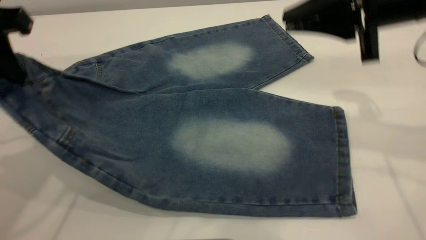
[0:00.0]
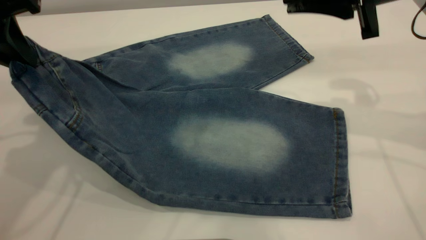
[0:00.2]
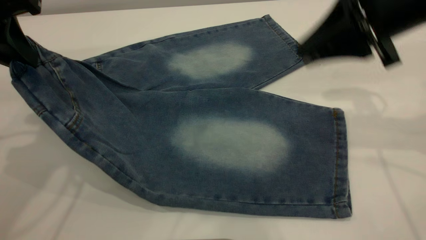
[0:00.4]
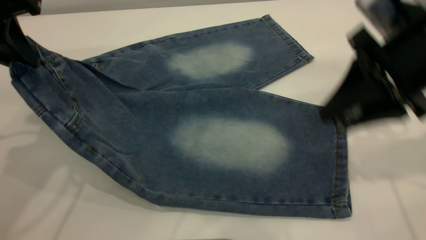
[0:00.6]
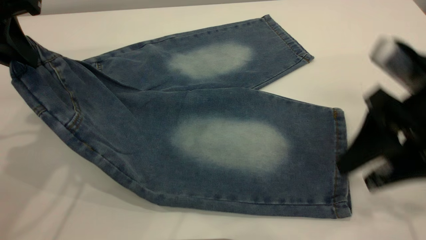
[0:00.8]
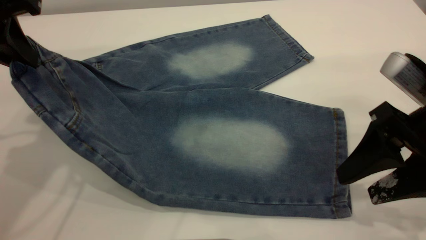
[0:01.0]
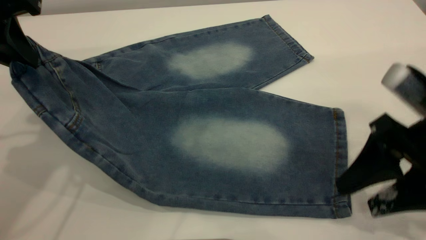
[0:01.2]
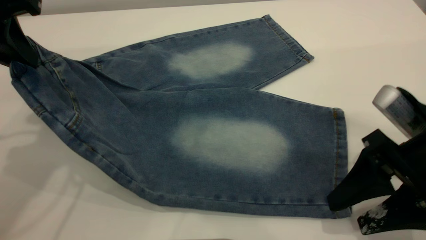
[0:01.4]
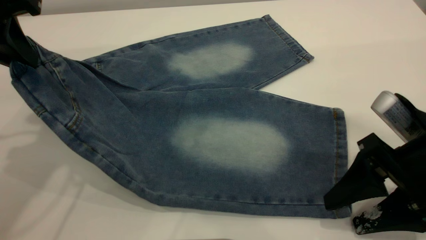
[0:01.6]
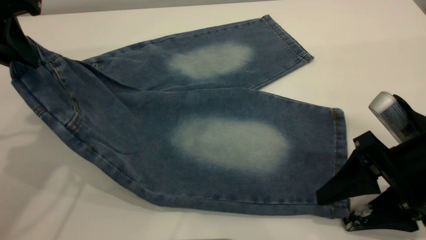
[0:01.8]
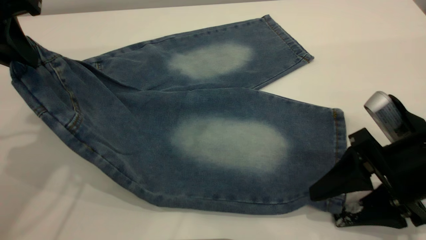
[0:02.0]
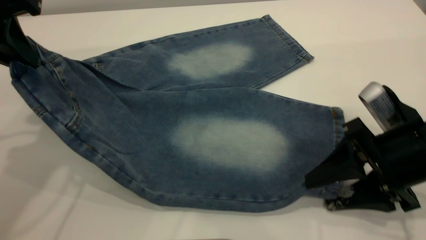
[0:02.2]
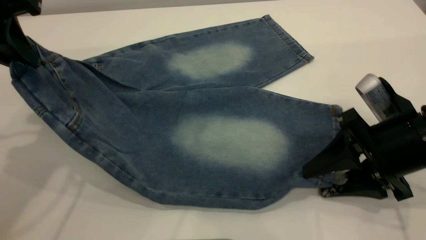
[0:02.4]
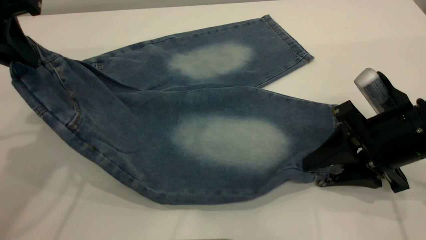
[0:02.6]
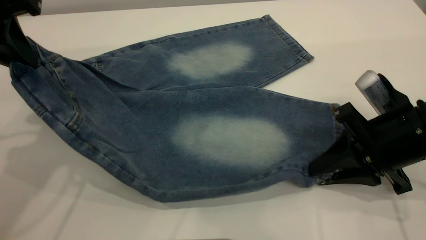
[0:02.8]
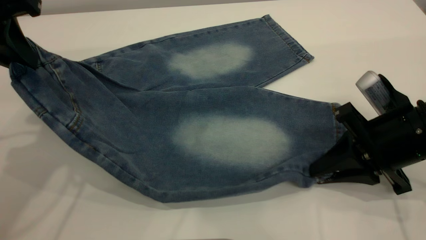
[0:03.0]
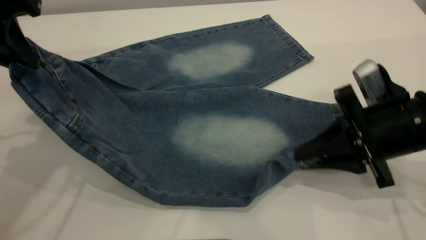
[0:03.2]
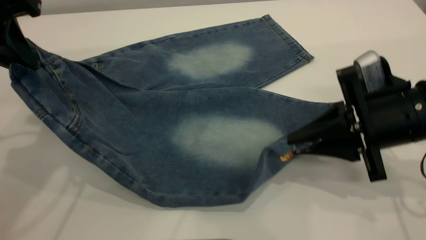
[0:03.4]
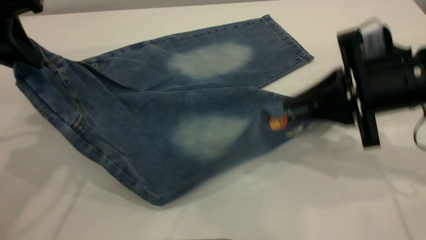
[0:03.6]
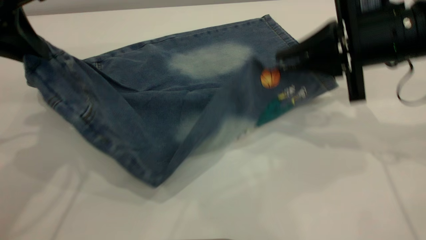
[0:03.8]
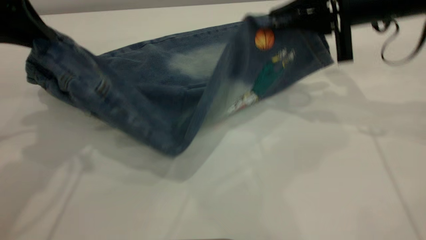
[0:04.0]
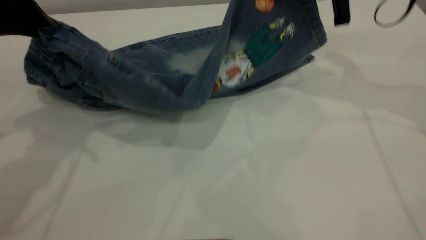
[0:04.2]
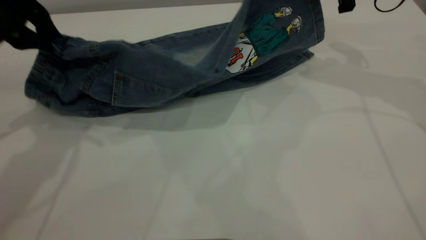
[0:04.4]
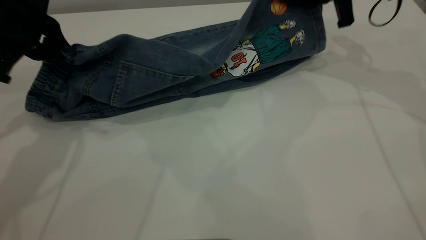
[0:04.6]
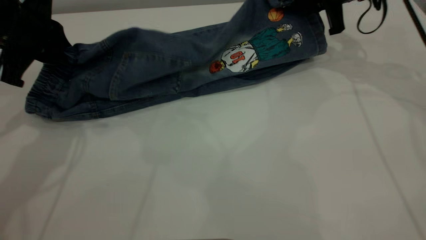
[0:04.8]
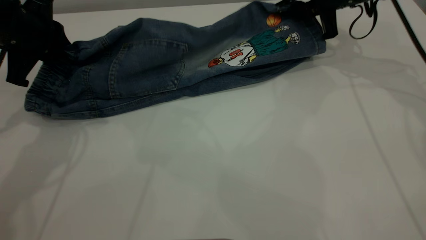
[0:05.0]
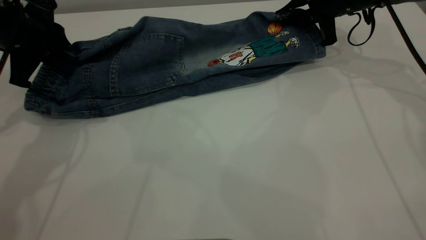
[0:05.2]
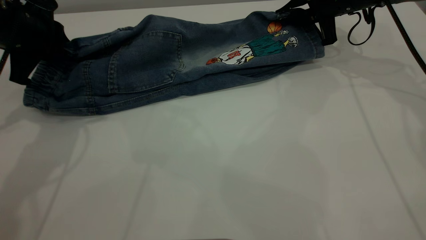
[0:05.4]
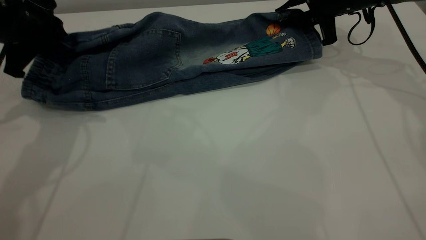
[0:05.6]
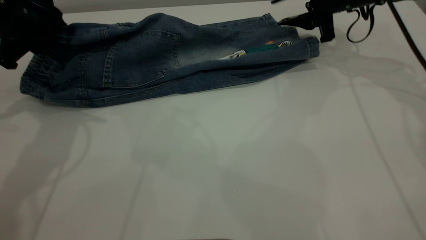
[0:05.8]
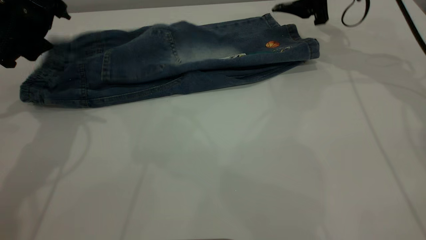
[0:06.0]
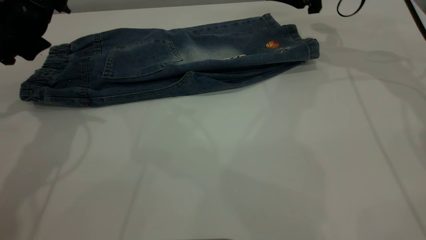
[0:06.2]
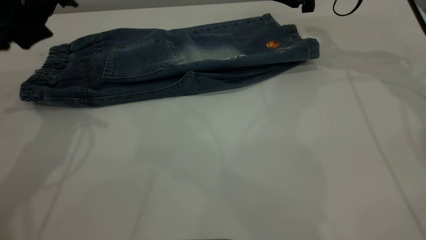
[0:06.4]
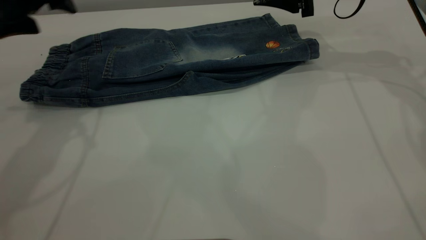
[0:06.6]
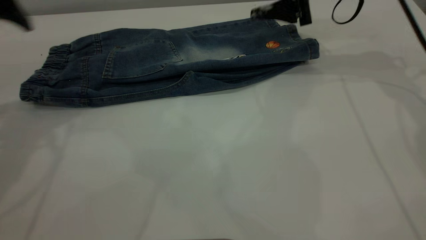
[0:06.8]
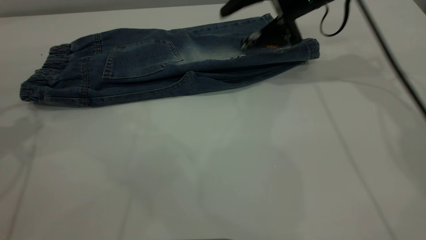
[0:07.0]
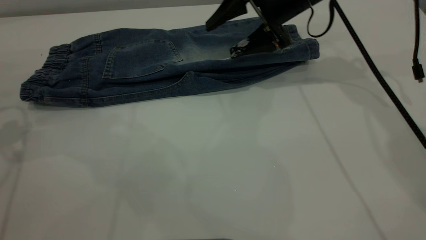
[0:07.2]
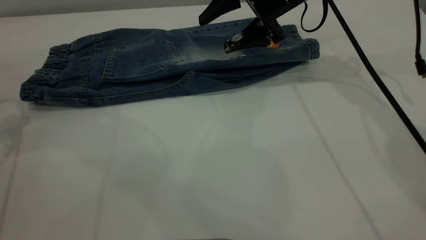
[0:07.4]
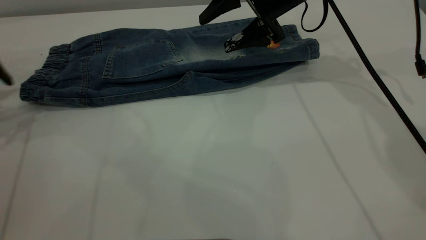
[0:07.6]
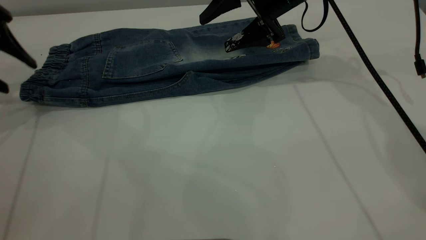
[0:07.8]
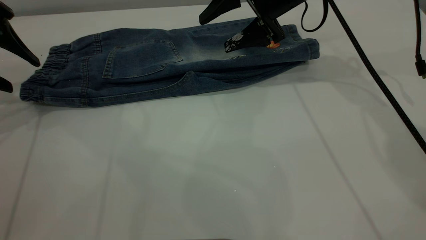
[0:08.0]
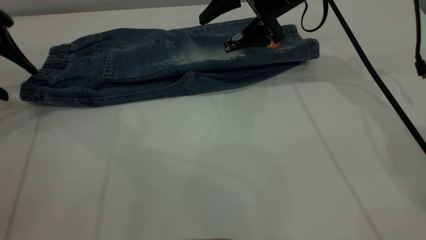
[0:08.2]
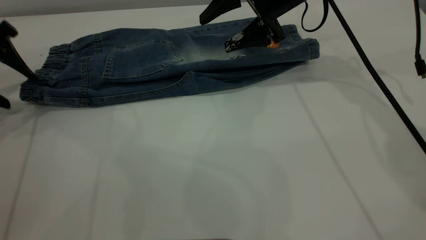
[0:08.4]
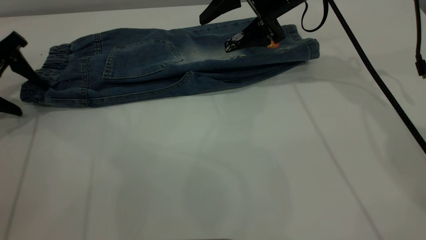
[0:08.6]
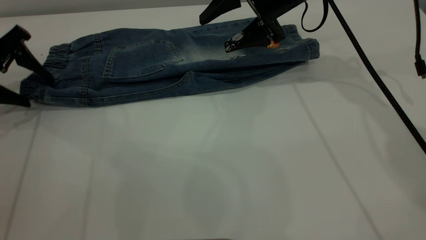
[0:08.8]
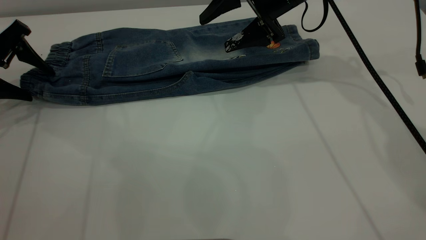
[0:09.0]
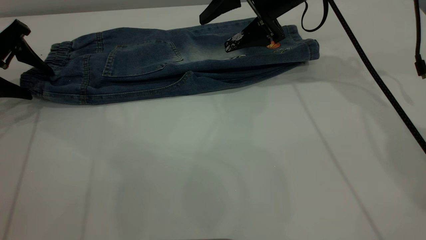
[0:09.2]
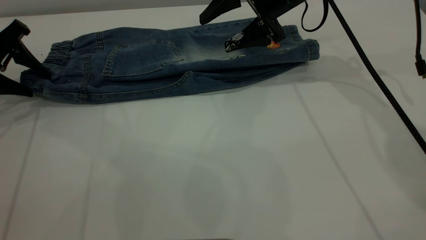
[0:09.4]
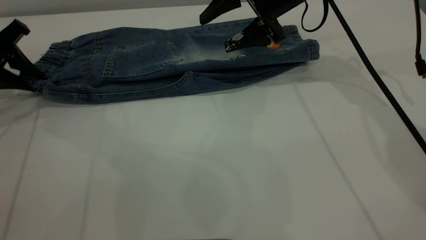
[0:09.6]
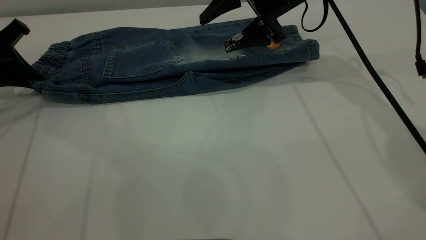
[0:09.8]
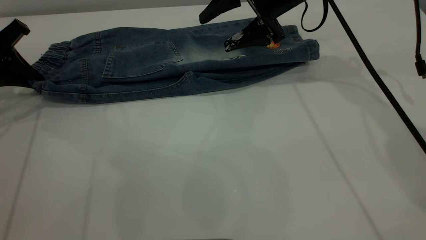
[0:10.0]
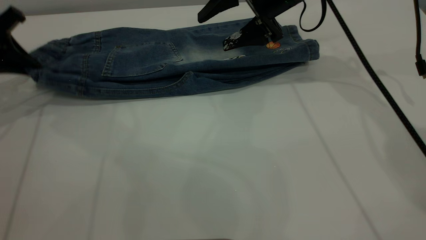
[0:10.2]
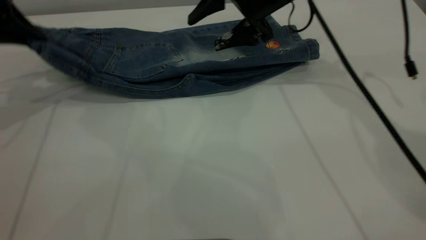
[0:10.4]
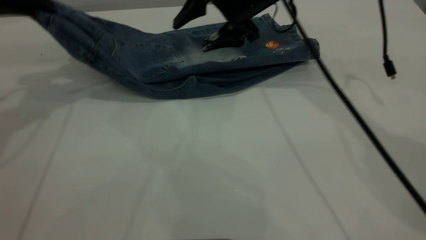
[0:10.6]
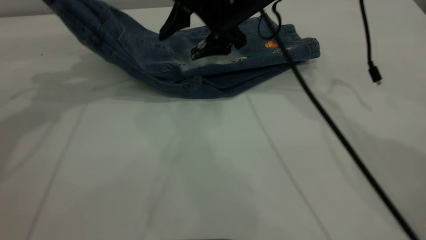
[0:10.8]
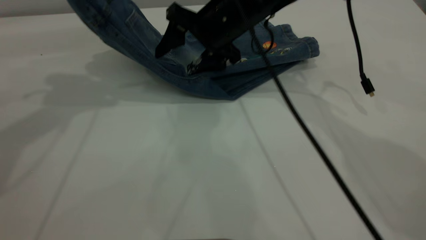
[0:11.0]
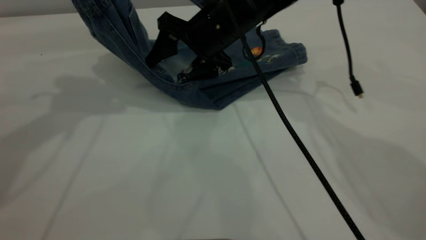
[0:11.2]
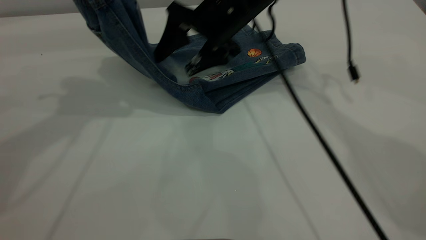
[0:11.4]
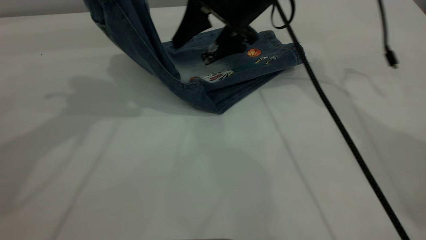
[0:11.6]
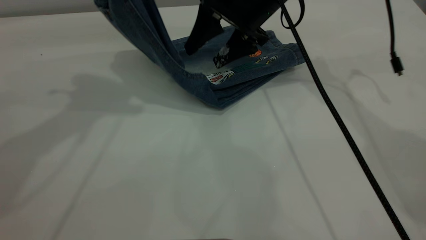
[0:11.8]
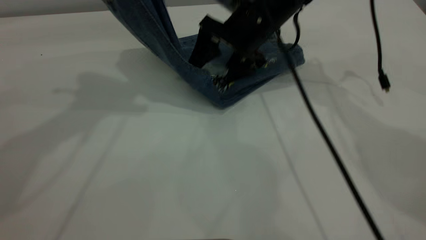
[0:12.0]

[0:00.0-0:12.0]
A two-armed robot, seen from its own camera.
Step, 0:00.0 to 0:07.4: Fold the bottom of the pants upward.
0:00.0 to 0:01.6: The right gripper travels backward and downward by roughly 20 cm, and opens its fingers.
0:01.6 to 0:03.0: The right gripper shifts by roughly 5 cm, and closes its fingers.
0:03.0 to 0:04.4: The right gripper is displaced forward and upward by some 25 cm.
0:04.4 to 0:06.0: The right gripper goes some 5 cm forward, and opens its fingers. Meanwhile the left gripper changes place by some 5 cm, and opens.
0:06.0 to 0:07.6: Both grippers move to the left, approximately 10 cm.
0:07.6 to 0:09.0: The left gripper ends up some 5 cm from where it was.
0:09.0 to 0:10.4: The left gripper heads upward, covering roughly 10 cm, and closes its fingers.
0:10.4 to 0:12.0: The left gripper goes about 20 cm upward and to the right.

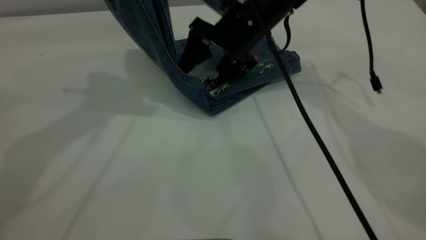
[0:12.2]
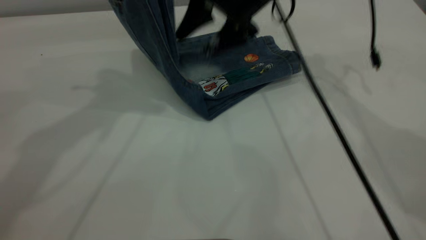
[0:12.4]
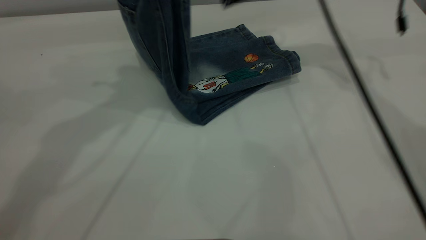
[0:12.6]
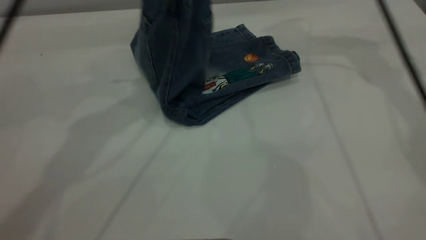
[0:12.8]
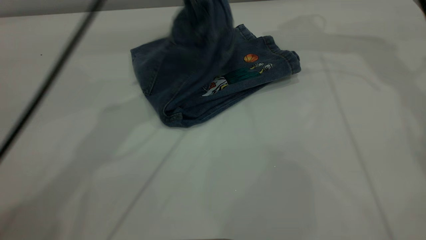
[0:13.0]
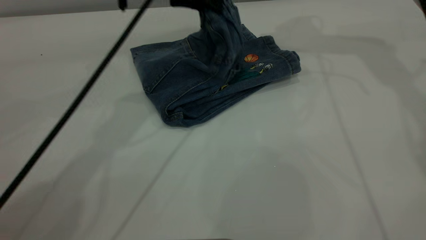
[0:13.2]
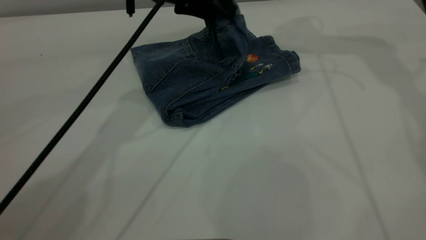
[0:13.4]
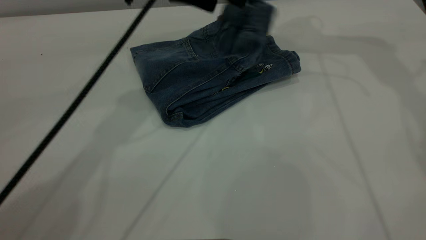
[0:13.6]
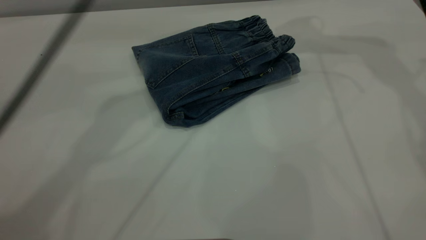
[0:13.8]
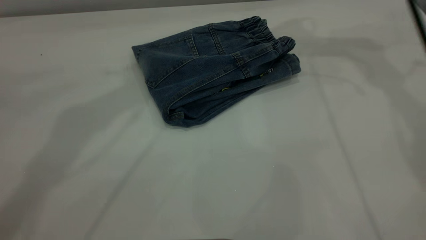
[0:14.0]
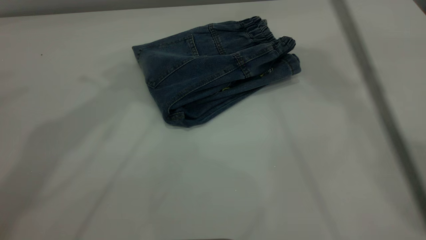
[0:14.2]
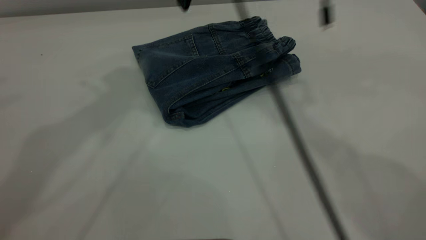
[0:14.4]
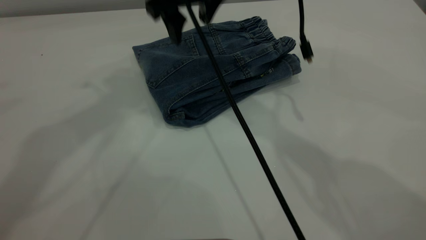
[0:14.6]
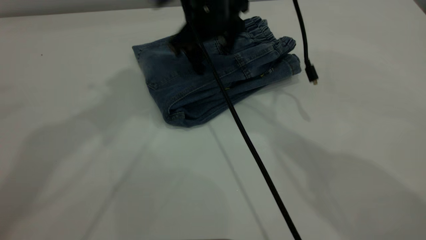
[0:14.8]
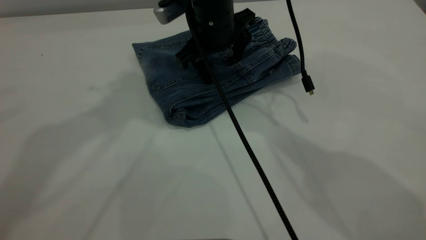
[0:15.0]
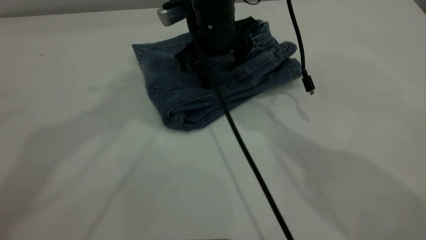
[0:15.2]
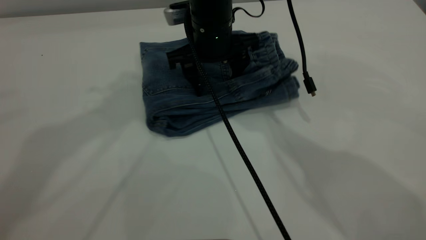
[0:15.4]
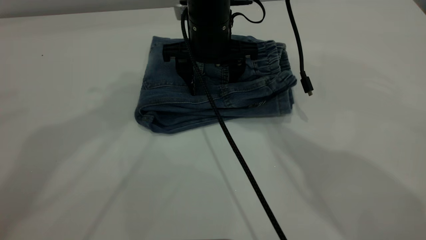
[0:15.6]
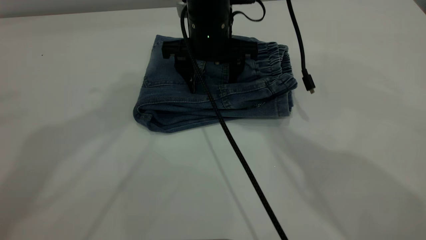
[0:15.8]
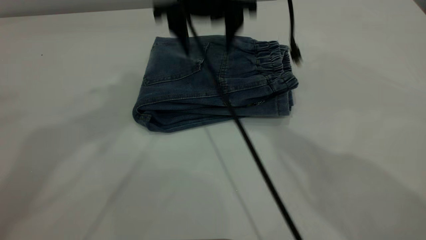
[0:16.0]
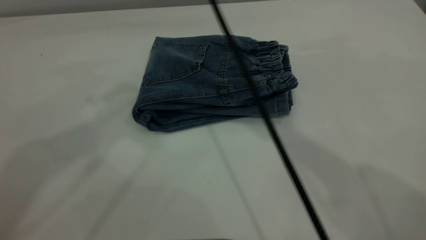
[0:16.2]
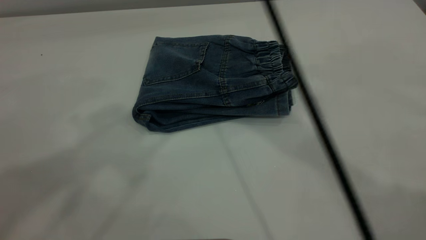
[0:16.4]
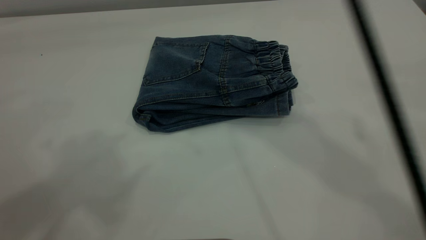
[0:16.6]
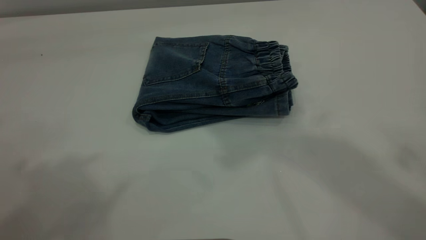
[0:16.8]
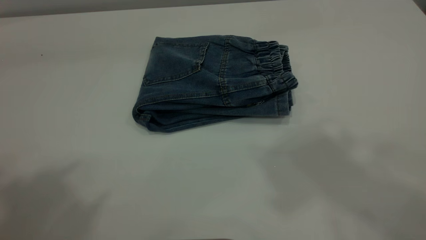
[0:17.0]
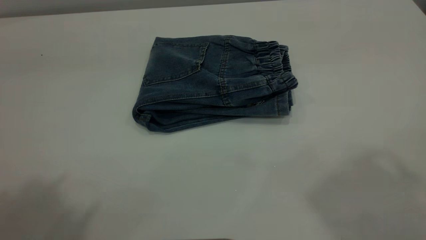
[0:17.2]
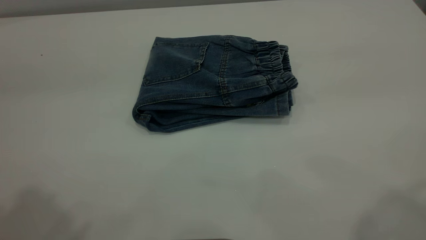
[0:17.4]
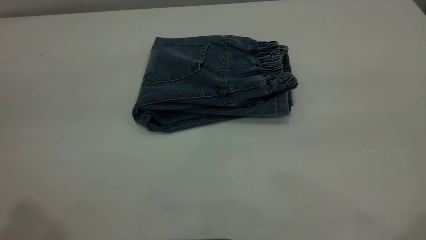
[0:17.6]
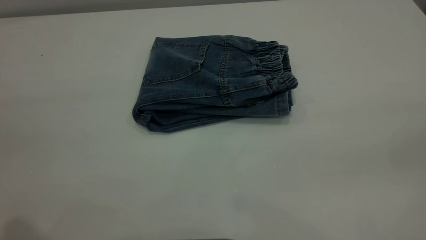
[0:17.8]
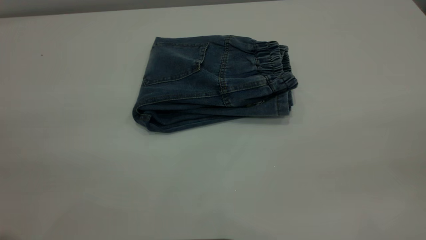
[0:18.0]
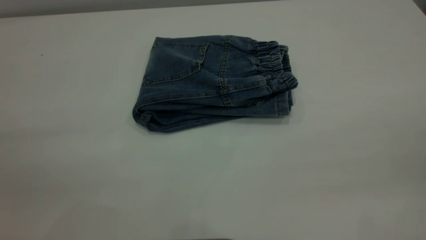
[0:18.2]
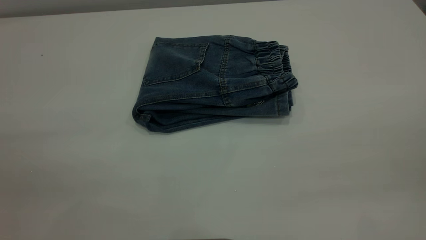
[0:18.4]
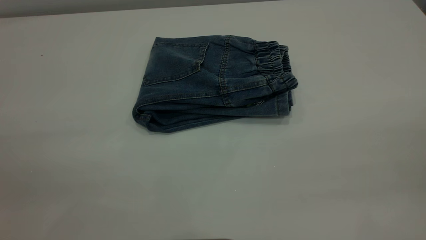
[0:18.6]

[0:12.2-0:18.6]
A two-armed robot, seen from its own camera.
0:12.2 to 0:13.8: The left gripper moves to the right, some 10 cm, travels downward and back again, roughly 15 cm each way, and opens; the right gripper moves upward and to the right, roughly 20 cm.
0:13.8 to 0:15.4: The right gripper shifts roughly 30 cm to the left, downward and backward; the left gripper heads upward, to the left and backward, covering approximately 15 cm.
0:15.4 to 0:17.0: The left gripper heads backward and upward, covering approximately 20 cm; the right gripper is displaced upward and backward by some 40 cm.
